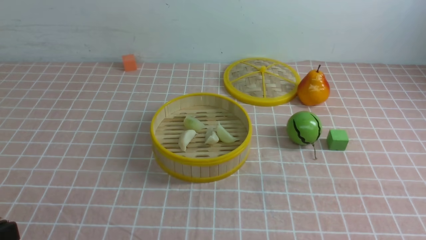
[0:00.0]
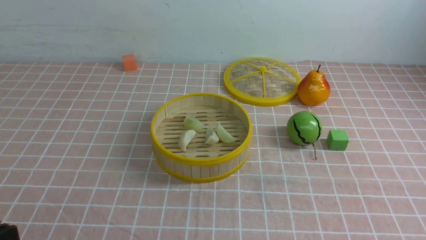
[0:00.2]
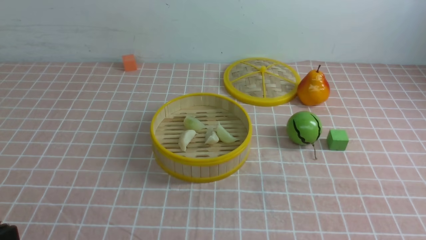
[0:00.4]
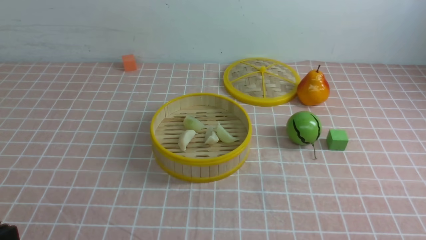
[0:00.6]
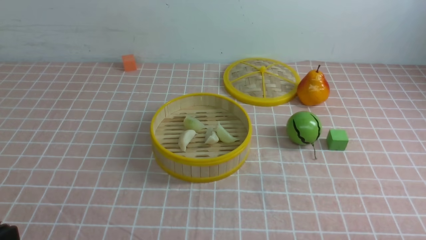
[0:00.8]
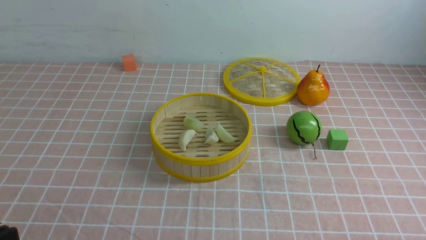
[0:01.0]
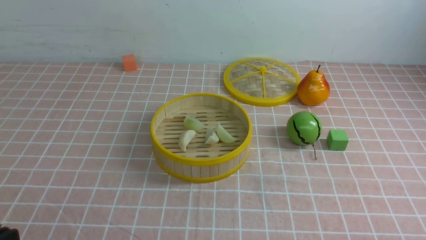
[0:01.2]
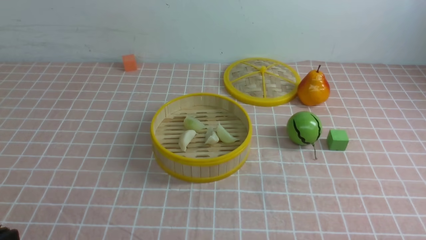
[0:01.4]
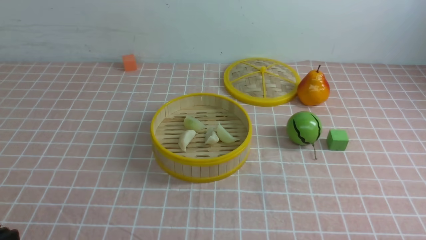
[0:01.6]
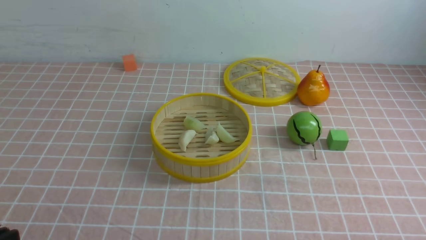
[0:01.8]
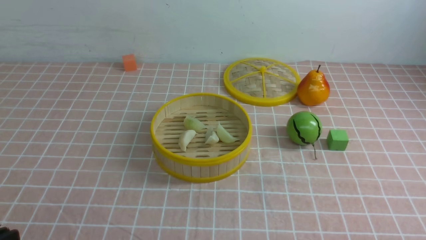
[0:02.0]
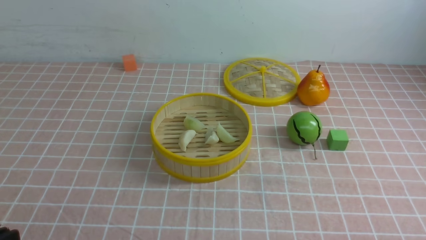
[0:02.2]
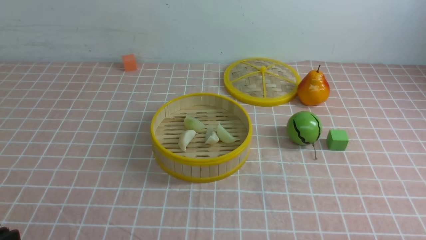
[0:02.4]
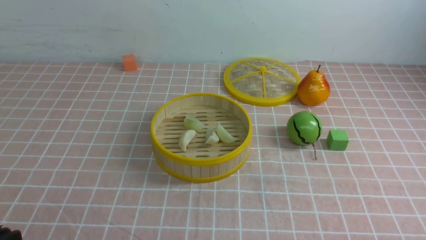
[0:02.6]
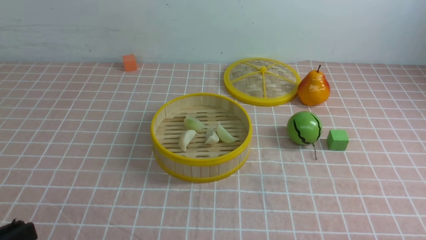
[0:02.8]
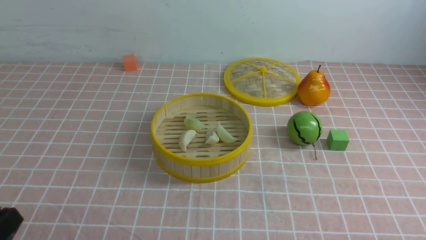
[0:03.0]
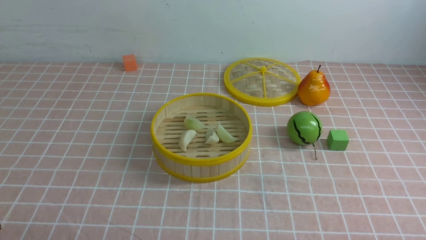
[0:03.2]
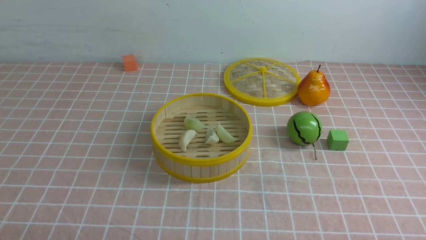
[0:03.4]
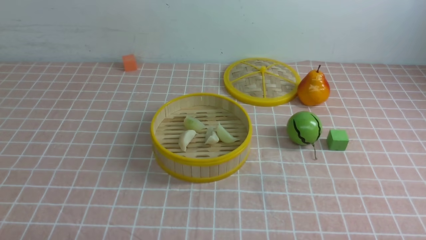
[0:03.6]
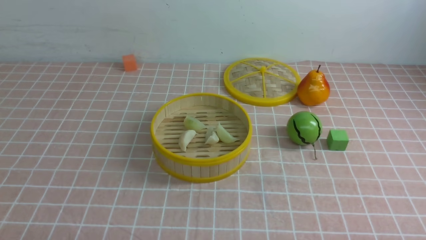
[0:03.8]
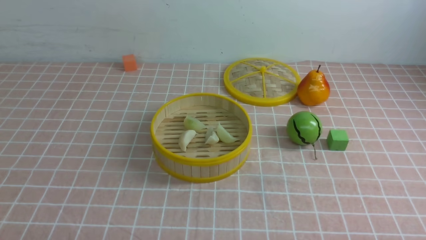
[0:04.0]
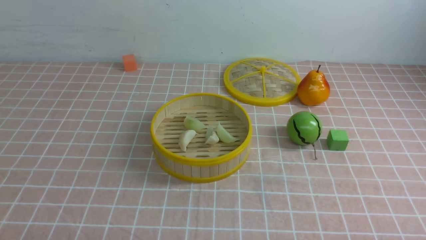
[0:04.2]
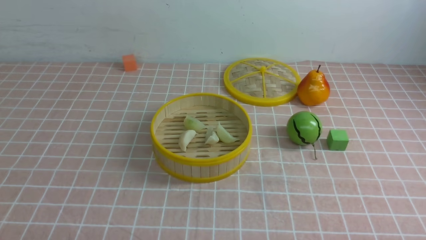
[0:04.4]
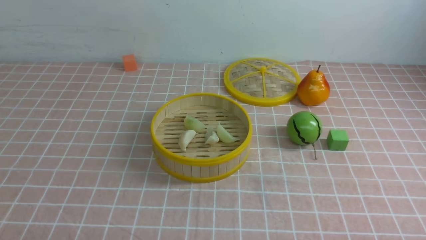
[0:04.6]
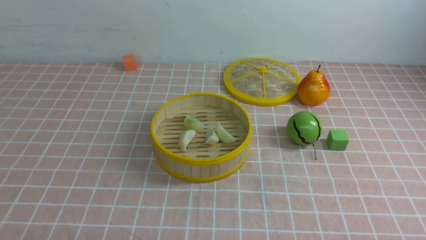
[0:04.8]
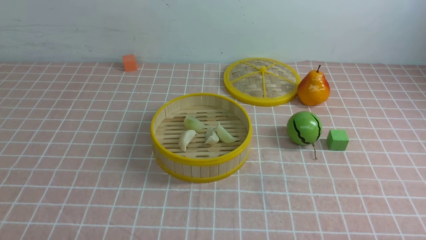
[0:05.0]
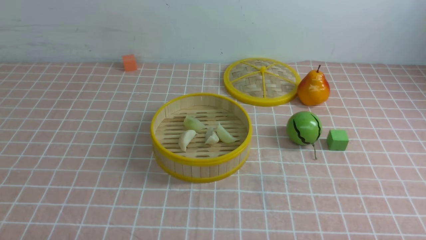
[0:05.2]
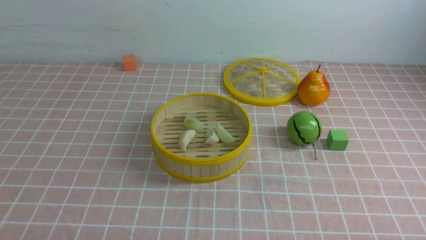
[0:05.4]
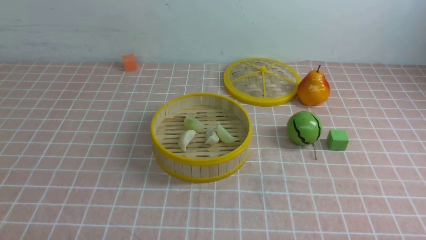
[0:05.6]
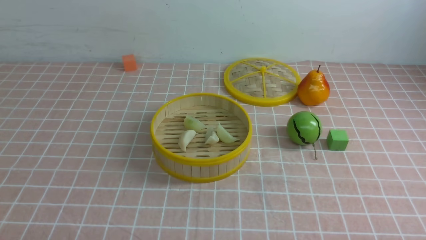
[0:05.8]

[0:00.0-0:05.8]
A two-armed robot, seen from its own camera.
Task of the whole recording: put the dumplings into the steamer on the table with the pink tablecloth.
0:02.8 to 0:04.4: The left gripper travels downward by about 10 cm.
0:04.4 to 0:05.8: Neither gripper changes place.

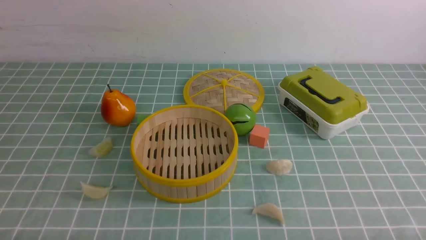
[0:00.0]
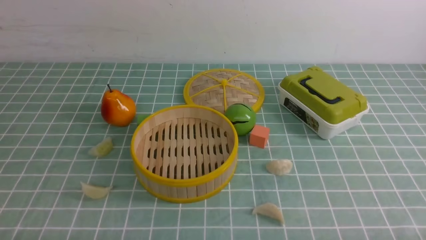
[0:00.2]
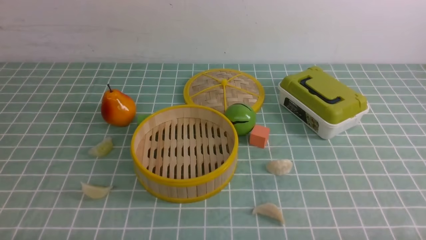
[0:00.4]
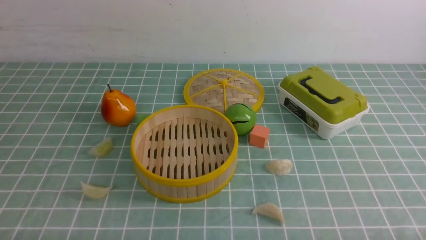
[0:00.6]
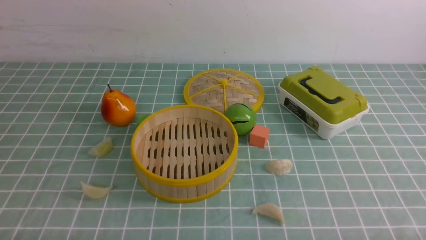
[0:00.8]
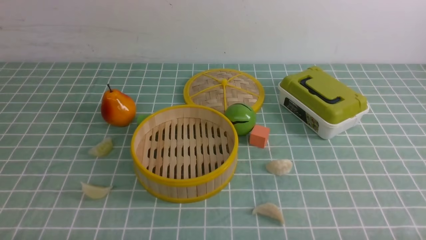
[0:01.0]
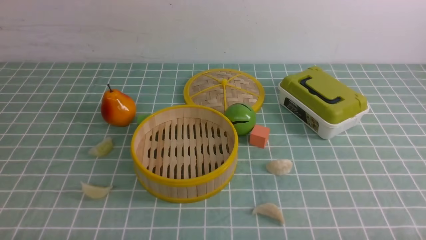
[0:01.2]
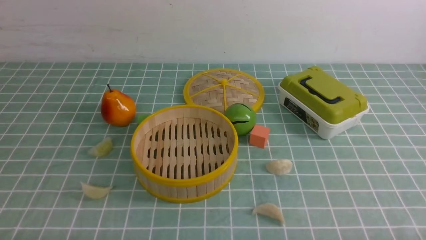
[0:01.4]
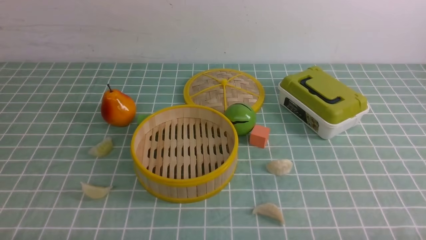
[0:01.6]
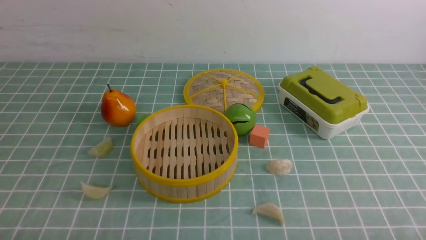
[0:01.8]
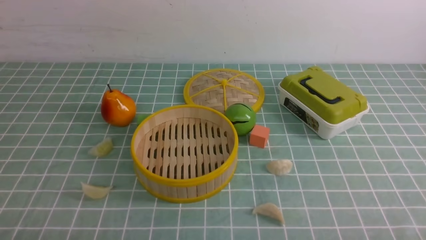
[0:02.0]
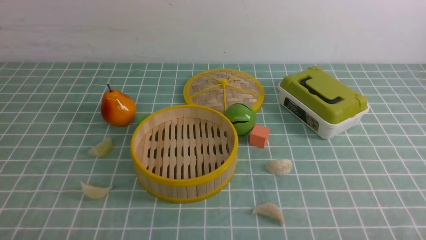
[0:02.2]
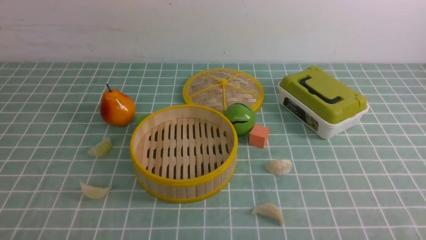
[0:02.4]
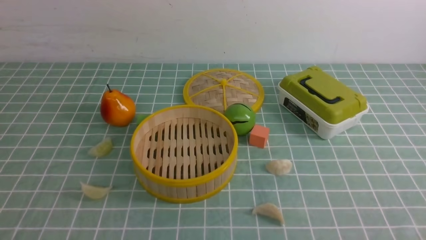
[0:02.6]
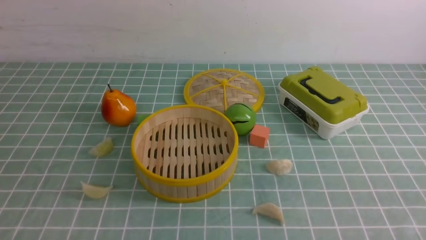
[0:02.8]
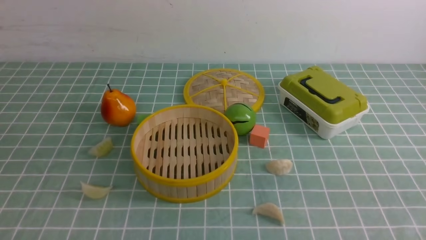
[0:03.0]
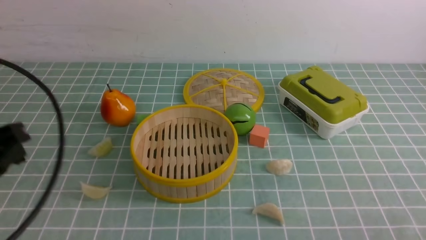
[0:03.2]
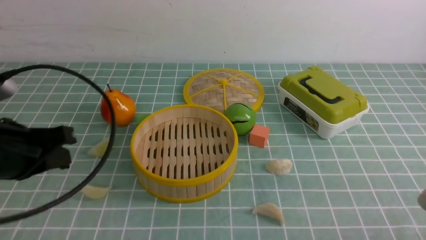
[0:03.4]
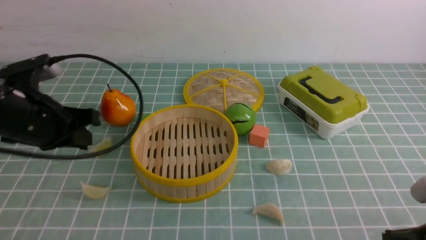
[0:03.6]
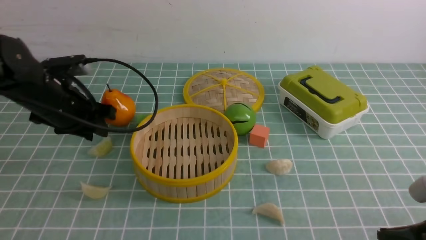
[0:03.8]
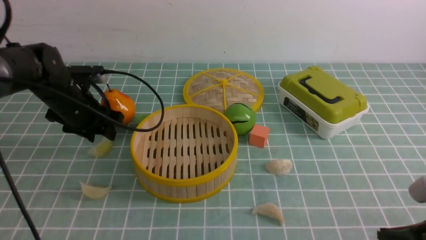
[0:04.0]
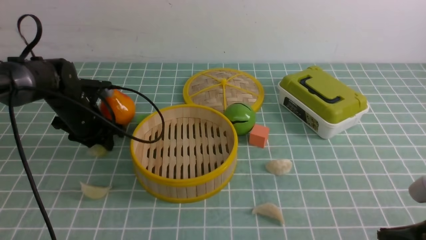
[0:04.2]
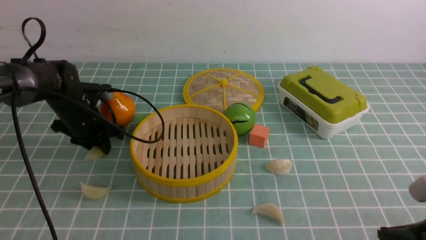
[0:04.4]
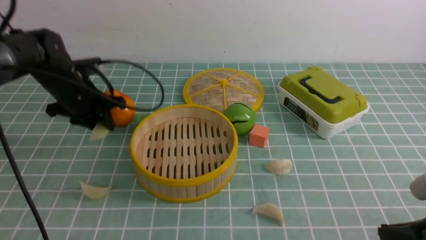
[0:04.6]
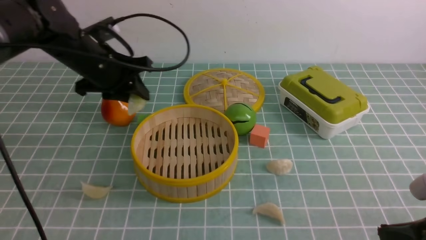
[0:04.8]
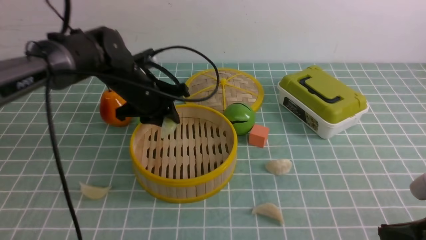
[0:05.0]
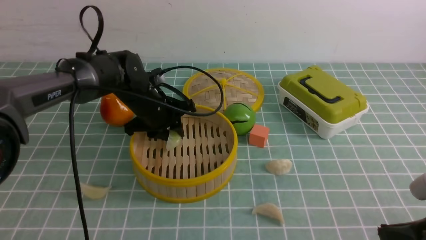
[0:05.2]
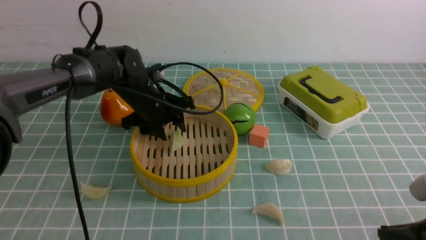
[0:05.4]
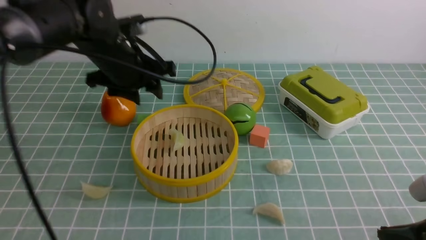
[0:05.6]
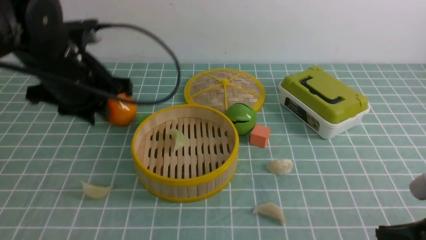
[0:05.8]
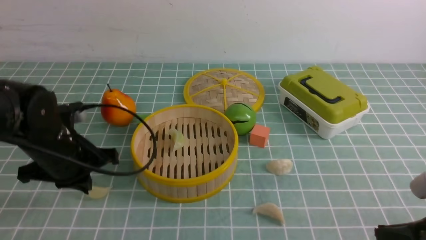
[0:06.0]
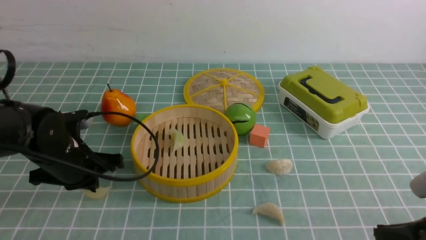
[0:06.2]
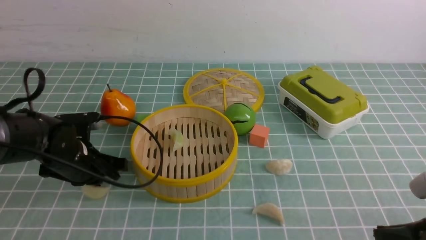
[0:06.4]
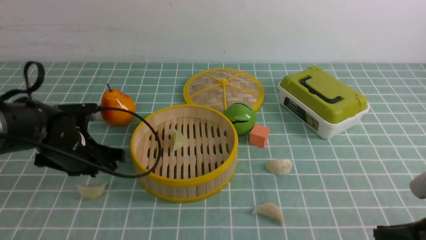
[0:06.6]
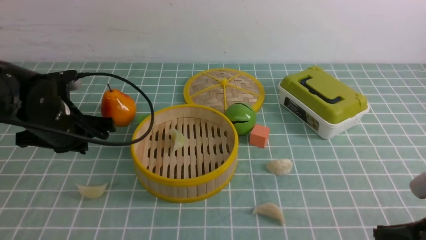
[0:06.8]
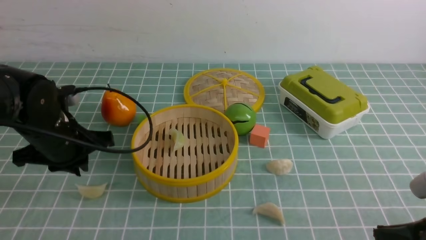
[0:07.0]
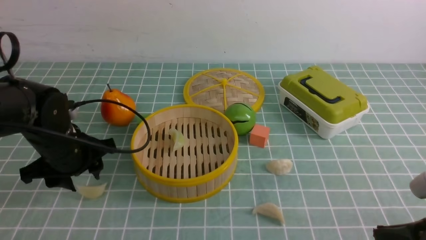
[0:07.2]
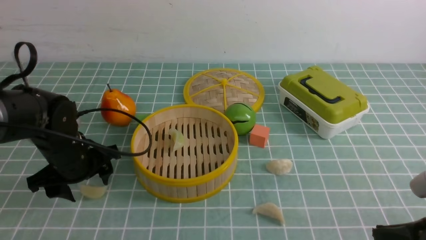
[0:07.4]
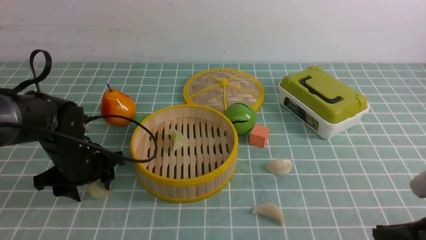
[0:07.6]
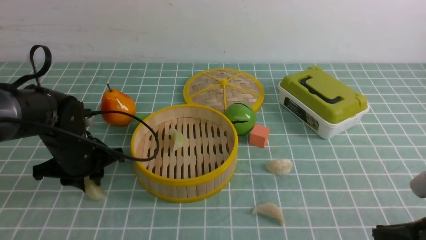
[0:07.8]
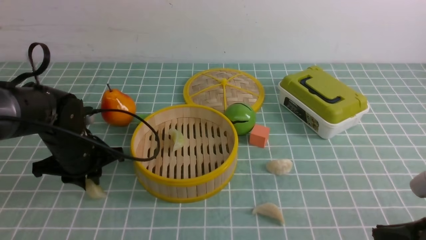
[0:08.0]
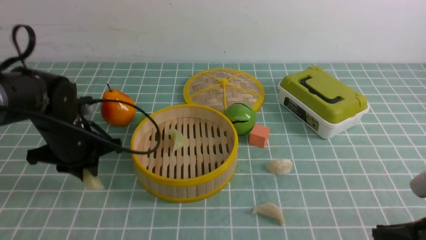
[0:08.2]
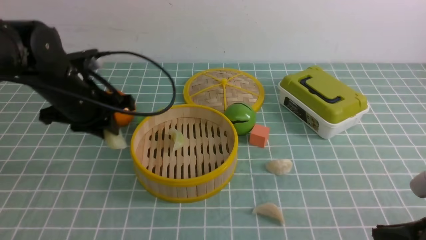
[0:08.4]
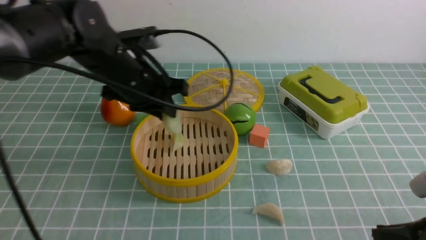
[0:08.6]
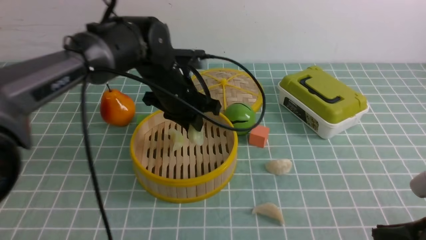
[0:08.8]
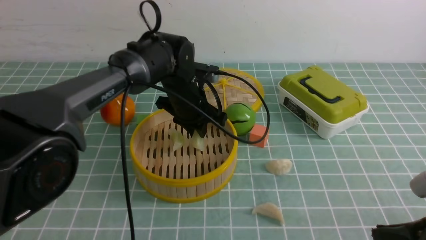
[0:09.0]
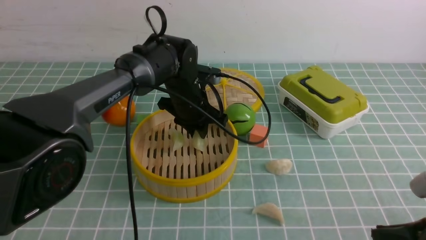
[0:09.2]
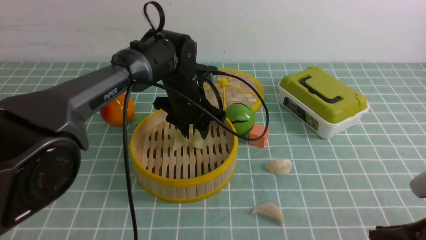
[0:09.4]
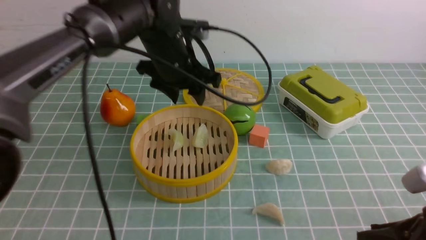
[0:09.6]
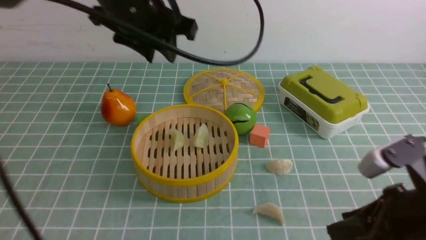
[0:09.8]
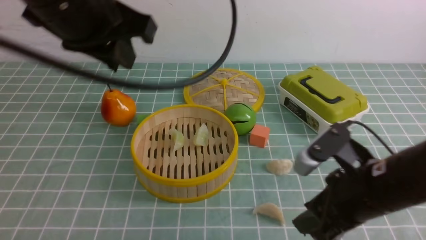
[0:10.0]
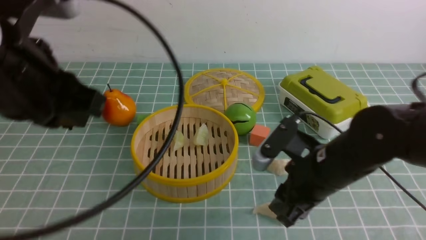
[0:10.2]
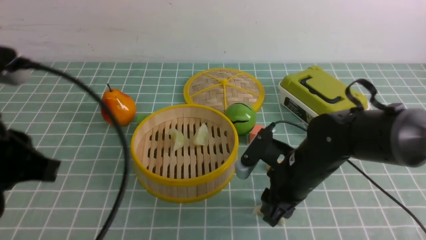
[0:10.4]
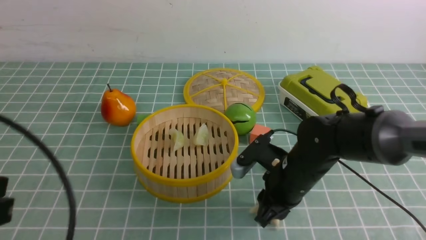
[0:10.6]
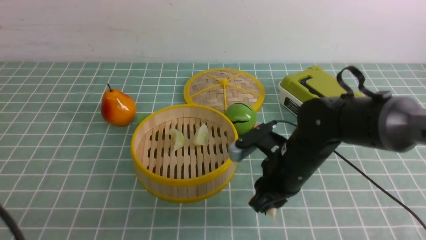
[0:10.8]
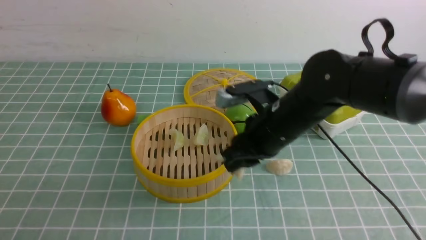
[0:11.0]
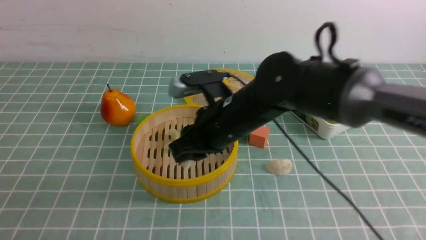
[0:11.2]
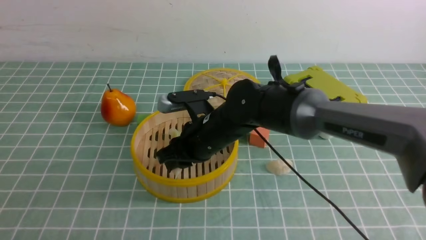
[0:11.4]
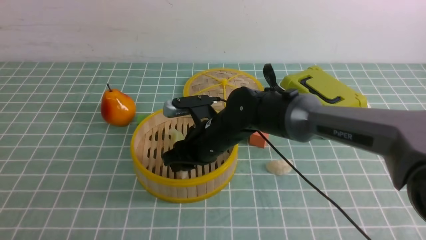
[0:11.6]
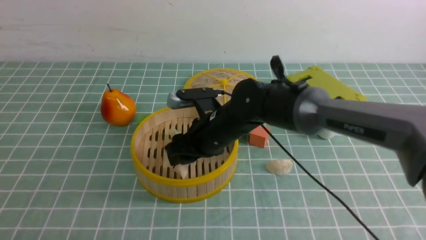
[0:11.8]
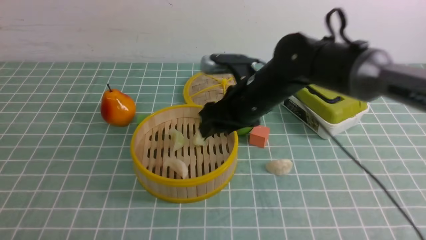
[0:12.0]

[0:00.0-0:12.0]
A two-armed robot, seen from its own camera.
Task of the whole recording: put the dumplings into the steamer on the table with the blue tablecloth.
Step, 0:00.0 to 0:04.4: use the left arm to grab a dumpling.
Step, 0:04.6 to 0:05.6: use the left arm to put the dumpling into the steamer.
Step, 0:05.8 to 0:08.0: use the left arm to grab a dumpling.
Step, 0:08.2 to 0:09.4: use the left arm to put the dumpling into the steamer.
Step, 0:09.6 to 0:10.4: use the right arm to grab a dumpling.
Step, 0:10.6 to 0:11.8: use the right arm to put the dumpling into the steamer.
0:03.0 to 0:04.4: The left gripper heads forward and downward, covering roughly 35 cm, and opens up; the right gripper shifts by some 5 cm.
0:04.4 to 0:06.0: The left gripper heads backward, covering roughly 10 cm, reaches about 10 cm to the right, then returns, and closes its fingers.
0:06.0 to 0:07.6: The left gripper goes up and down, about 5 cm each way, reversing 2 times, and opens up.
0:07.6 to 0:09.0: The left gripper travels to the right and forward by about 20 cm, and closes up.
0:09.0 to 0:10.4: The left gripper travels backward, to the left and upward by approximately 35 cm, and opens and closes again, while the right gripper is displaced forward and to the left by about 20 cm, and opens up.
0:10.4 to 0:12.0: The right gripper shifts approximately 10 cm forward and upward; the left gripper shifts approximately 15 cm backward, downward and to the left.
